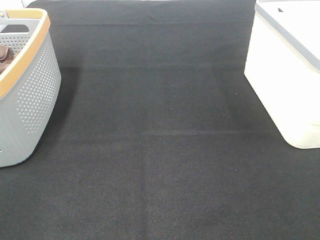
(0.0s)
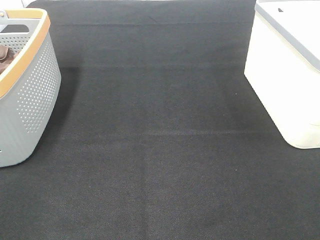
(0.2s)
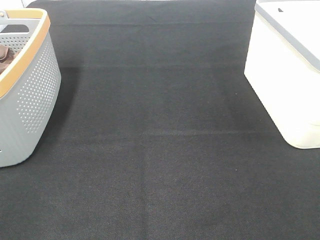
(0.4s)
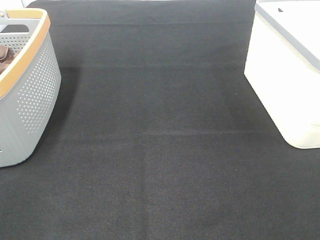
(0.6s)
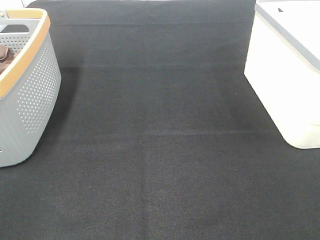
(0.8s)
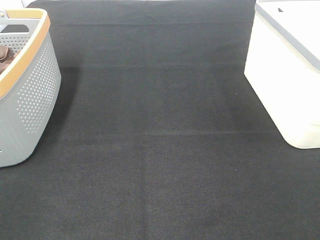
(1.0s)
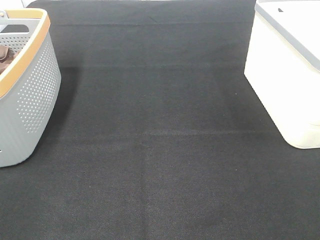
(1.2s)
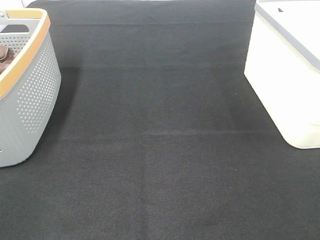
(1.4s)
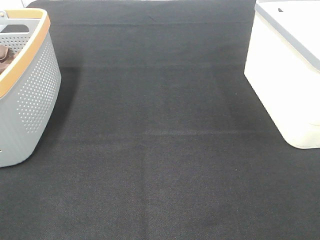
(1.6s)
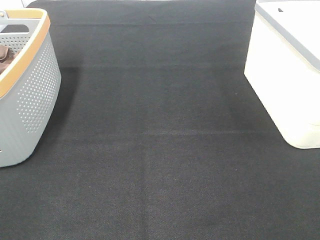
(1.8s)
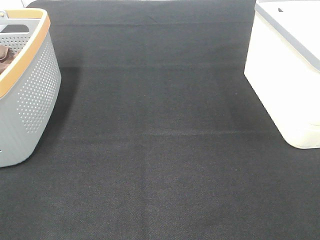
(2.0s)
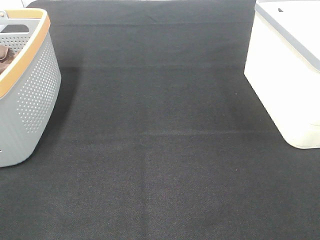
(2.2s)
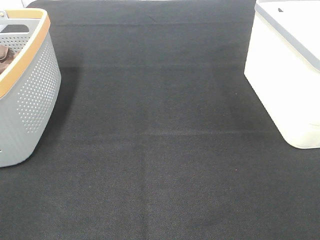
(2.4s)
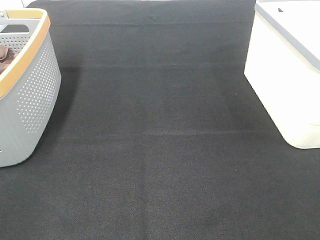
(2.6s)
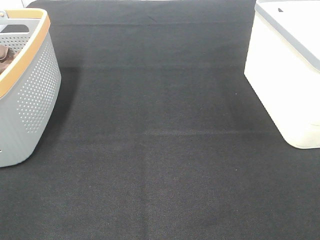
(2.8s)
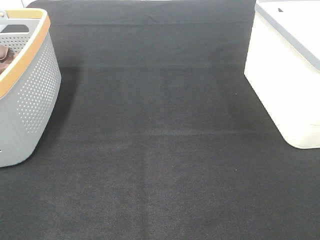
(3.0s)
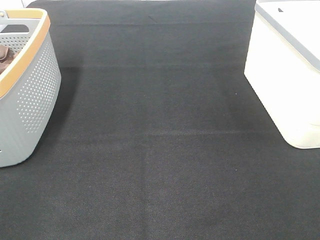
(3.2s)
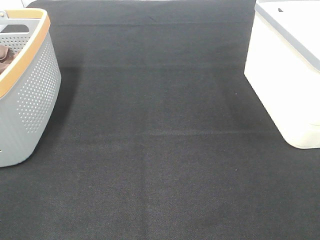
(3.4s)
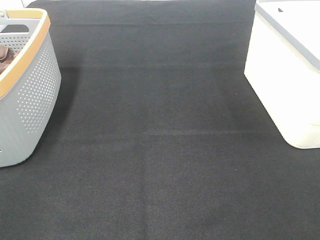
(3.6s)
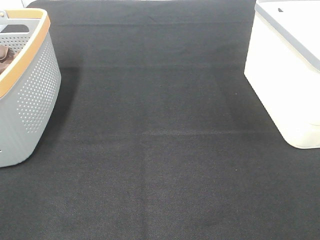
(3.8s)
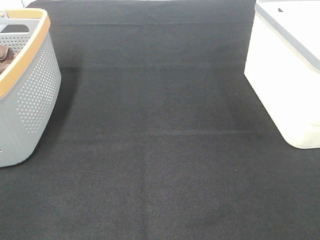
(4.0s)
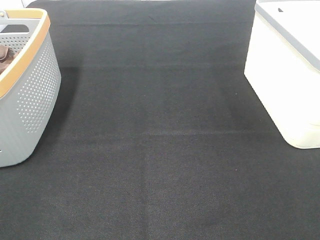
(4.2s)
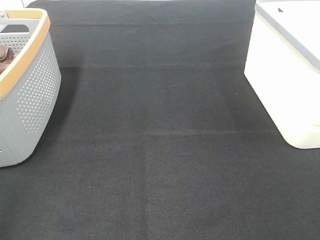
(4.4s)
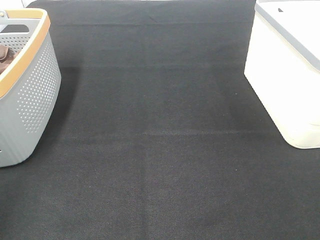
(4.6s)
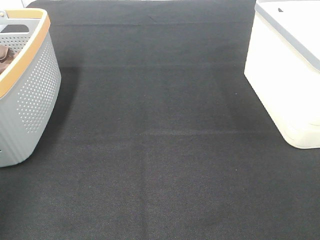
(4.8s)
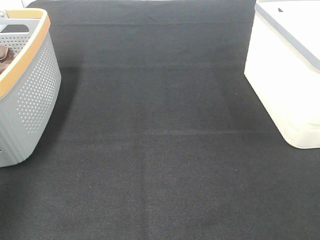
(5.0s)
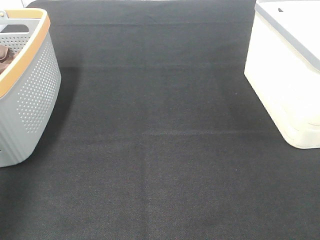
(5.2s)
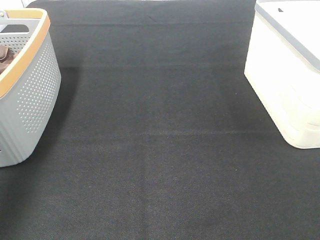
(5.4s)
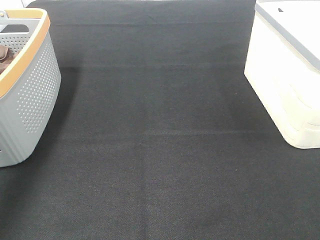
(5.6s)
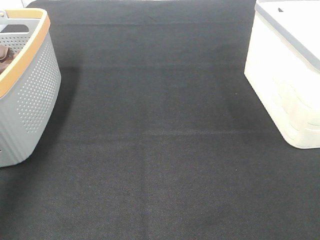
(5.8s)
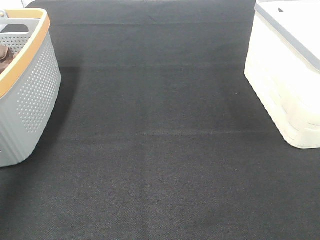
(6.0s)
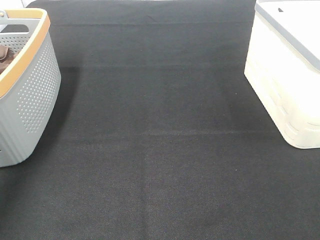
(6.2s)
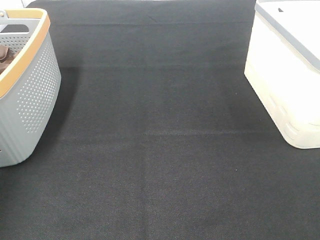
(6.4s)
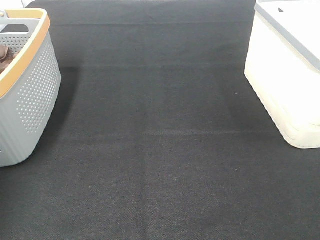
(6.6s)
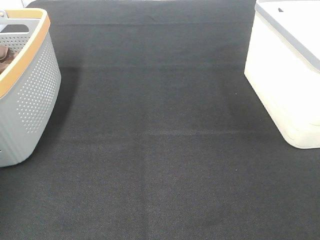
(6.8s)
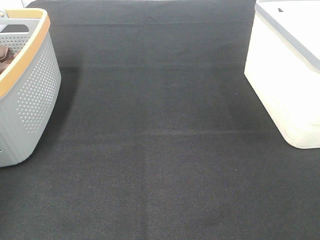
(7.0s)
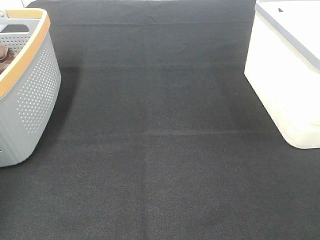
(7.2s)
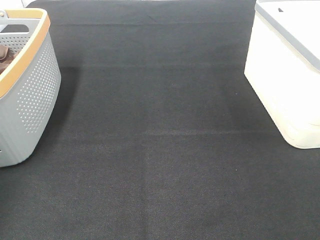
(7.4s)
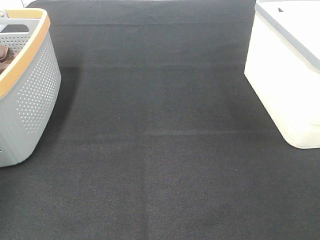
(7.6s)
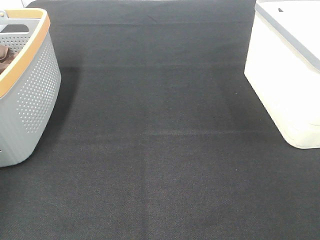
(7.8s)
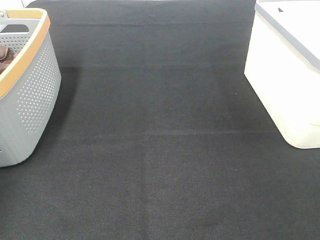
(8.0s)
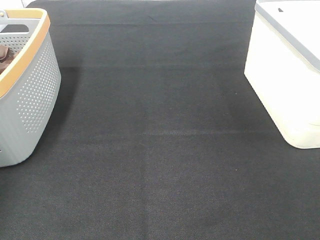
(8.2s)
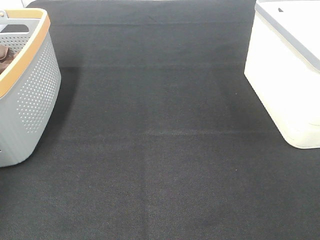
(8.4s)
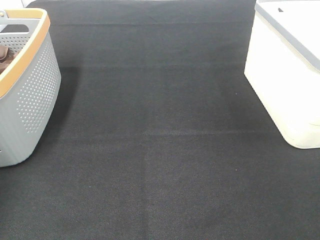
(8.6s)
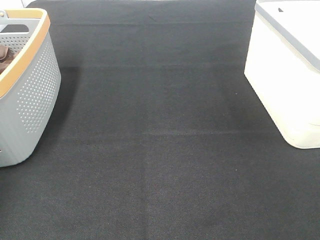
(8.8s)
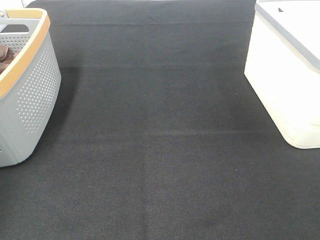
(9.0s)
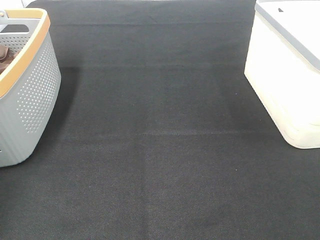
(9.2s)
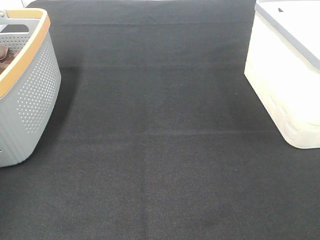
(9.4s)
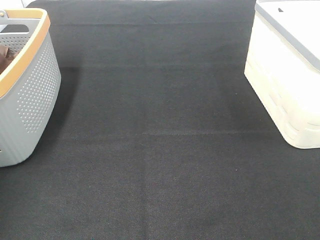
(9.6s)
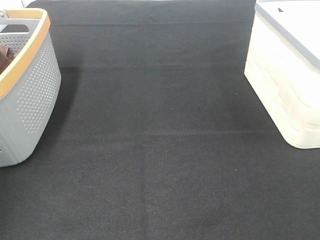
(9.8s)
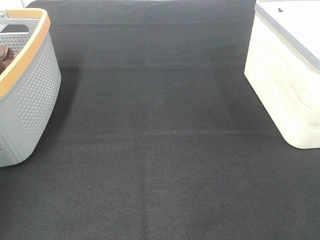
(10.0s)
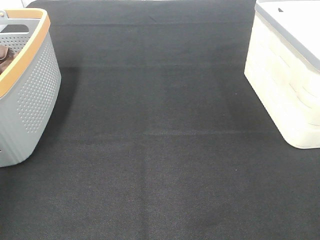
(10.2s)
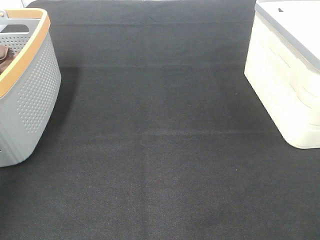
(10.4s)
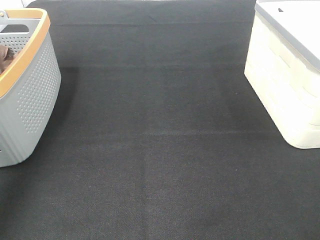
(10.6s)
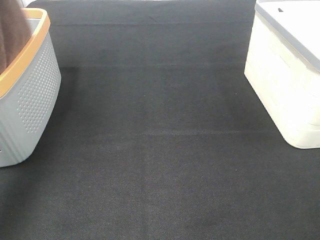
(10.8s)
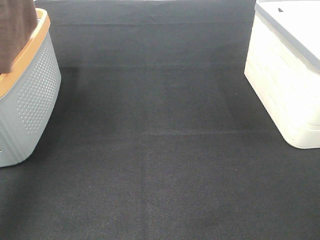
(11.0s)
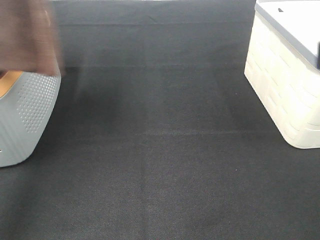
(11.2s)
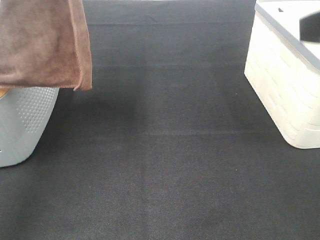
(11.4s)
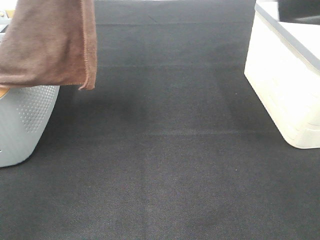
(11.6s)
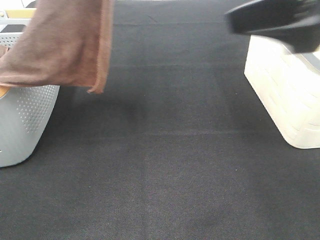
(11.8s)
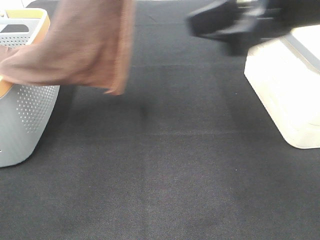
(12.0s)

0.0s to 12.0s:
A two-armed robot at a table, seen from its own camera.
Task of the whole recording: Remove the towel and place it.
0.0s to 3.0s: The two grippers keep their place.
4.4s to 6.0s: The left gripper is displaced forward by approximately 35 cm.
6.0s to 7.6s: The left gripper heads downward, forward and to the left, covering some 15 cm.
10.4s to 12.0s: The left gripper is displaced to the right by roughly 25 cm. The right gripper travels forward and to the left by roughly 20 cm.

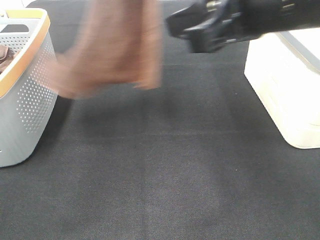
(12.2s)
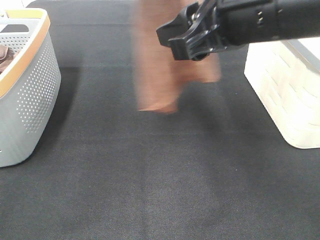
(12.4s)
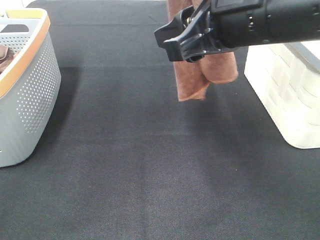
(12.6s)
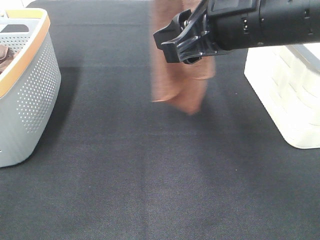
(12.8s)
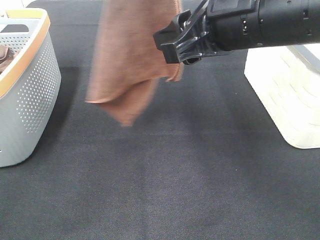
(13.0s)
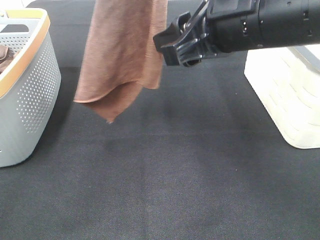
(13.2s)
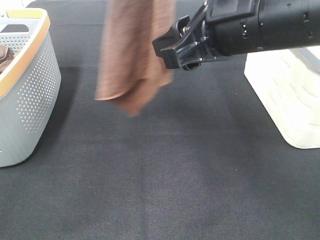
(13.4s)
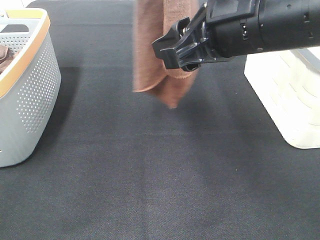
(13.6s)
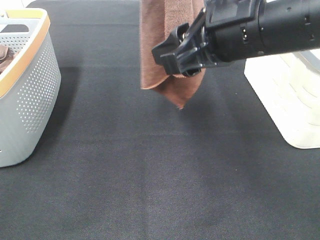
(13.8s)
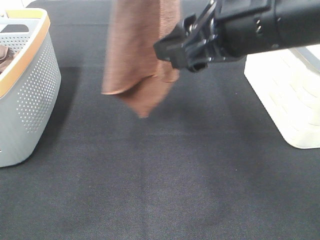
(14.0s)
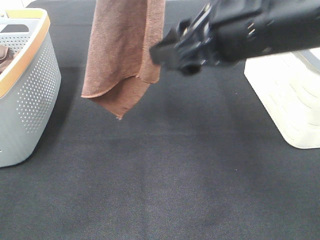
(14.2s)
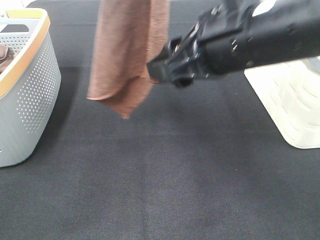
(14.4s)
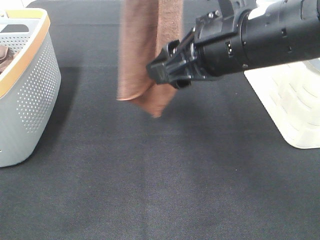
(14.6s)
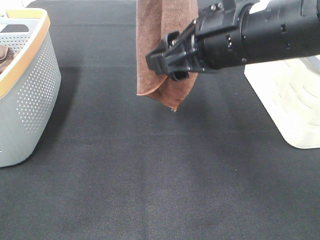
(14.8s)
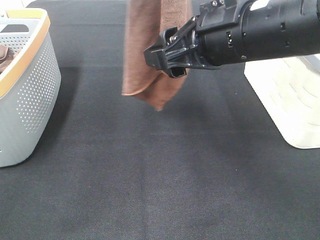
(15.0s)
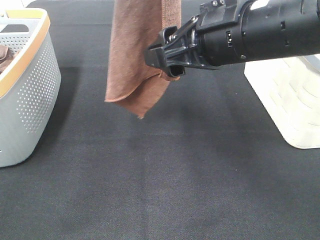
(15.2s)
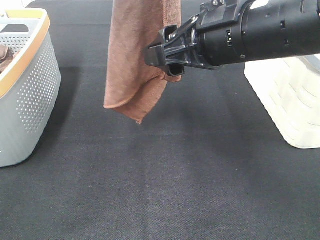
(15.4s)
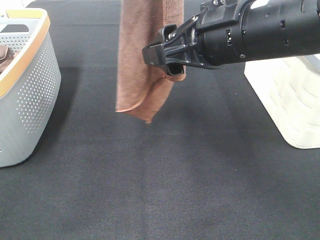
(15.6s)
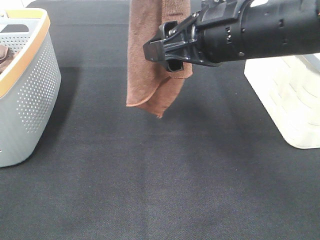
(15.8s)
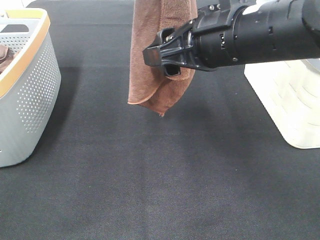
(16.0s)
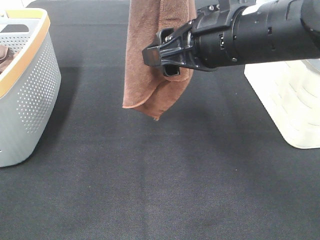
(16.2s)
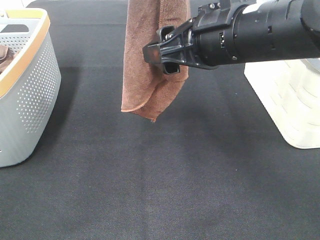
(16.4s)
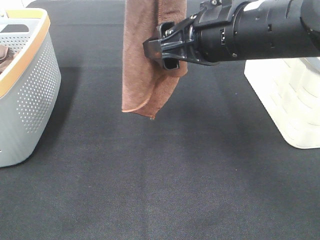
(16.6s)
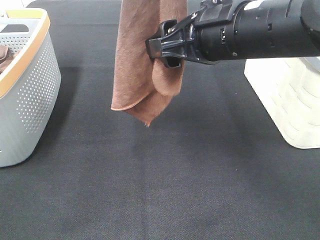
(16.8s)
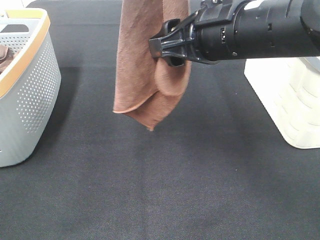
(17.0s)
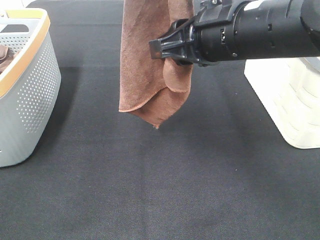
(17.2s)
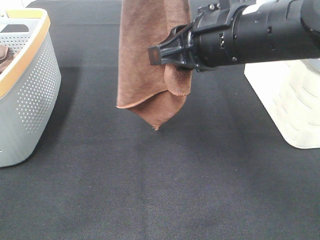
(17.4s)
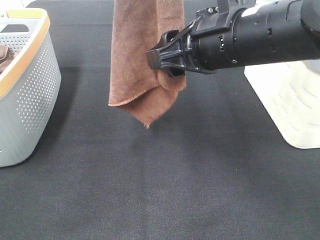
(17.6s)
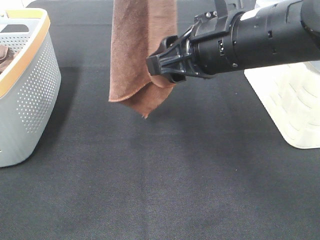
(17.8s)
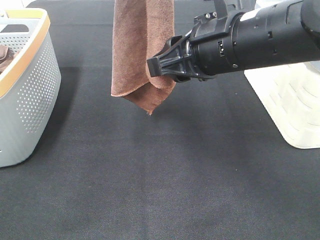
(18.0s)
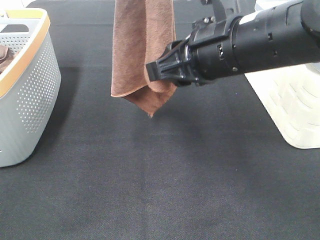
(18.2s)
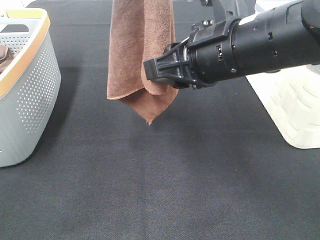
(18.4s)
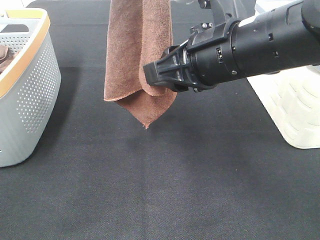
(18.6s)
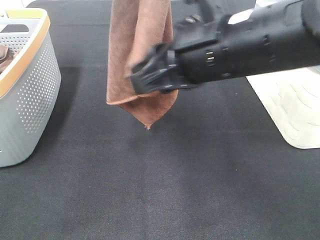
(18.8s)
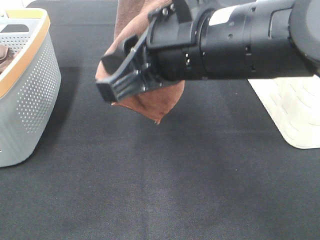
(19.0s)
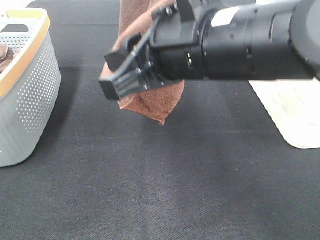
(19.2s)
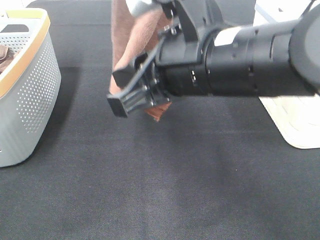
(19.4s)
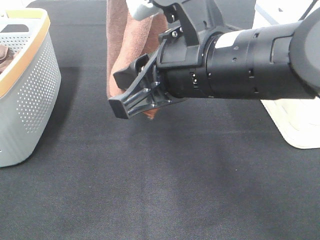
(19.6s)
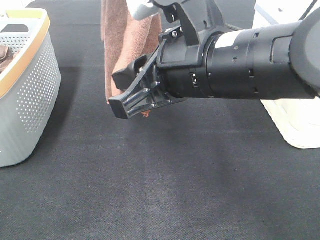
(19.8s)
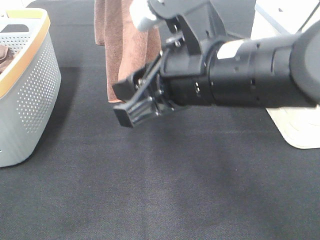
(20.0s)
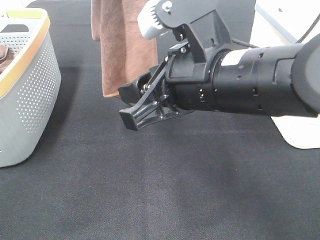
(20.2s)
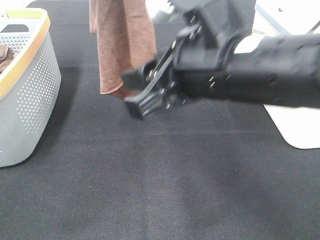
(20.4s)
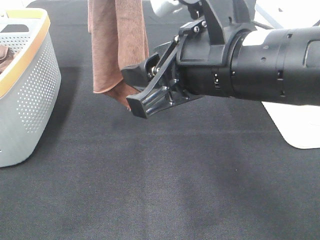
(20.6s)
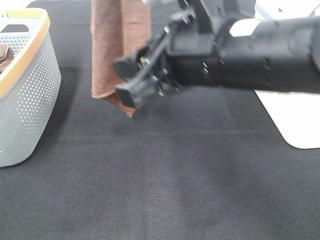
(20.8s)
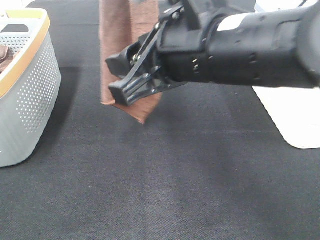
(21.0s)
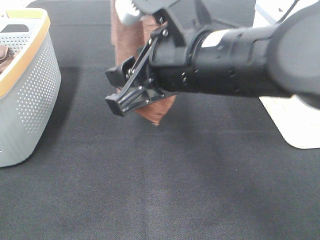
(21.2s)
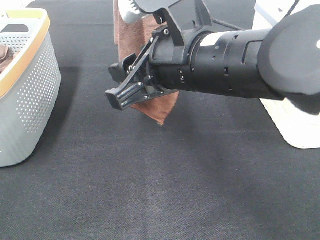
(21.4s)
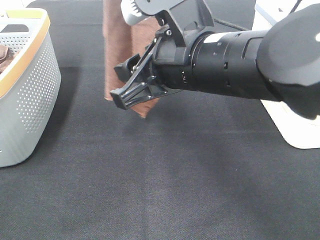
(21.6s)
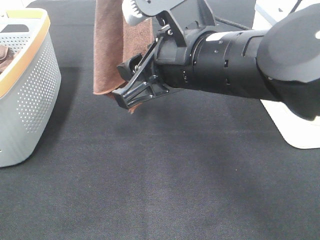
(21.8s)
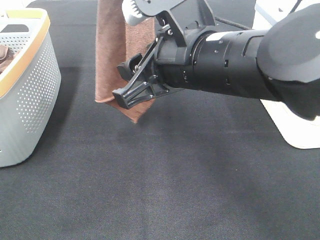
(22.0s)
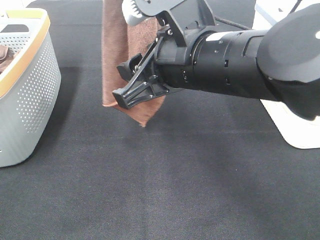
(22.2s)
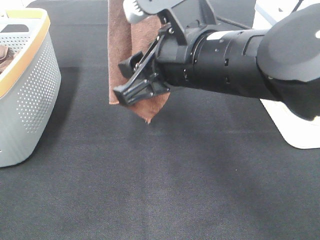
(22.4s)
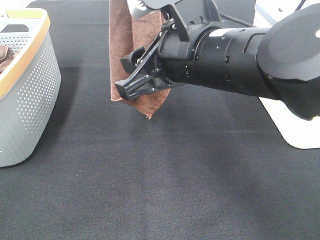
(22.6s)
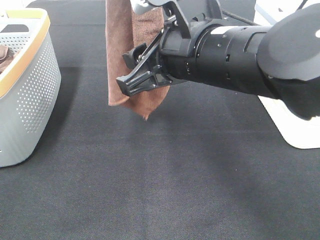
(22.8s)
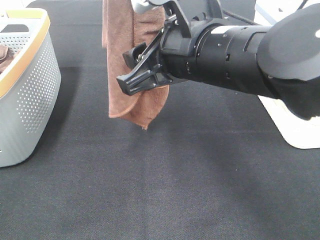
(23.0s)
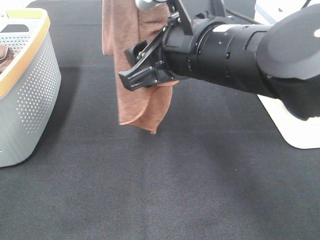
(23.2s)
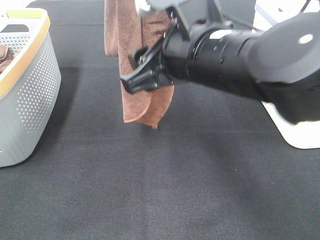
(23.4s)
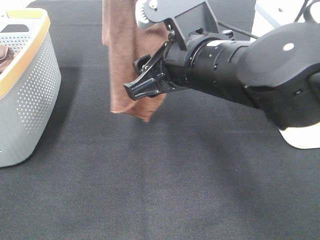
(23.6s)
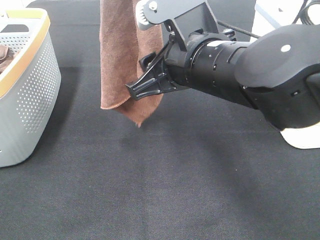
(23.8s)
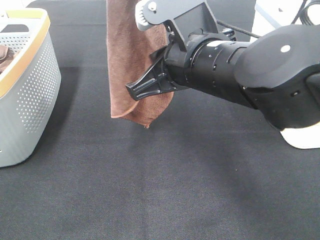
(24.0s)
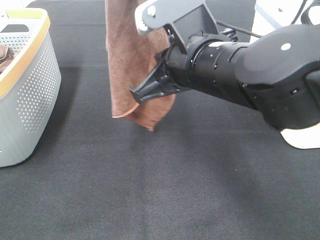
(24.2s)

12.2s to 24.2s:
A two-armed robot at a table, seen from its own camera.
Task of the whole recording: Remove the towel and place it.
12.2s to 15.2s: There are only small adjustments of the grippers.
15.2s to 16.6s: There are only small adjustments of the grippers.
16.6s to 18.2s: The right gripper closes.
18.2s to 19.8s: The right gripper moves about 5 cm.
19.8s to 22.6s: There are only small adjustments of the grippers.
22.6s to 24.2s: The right gripper closes.
